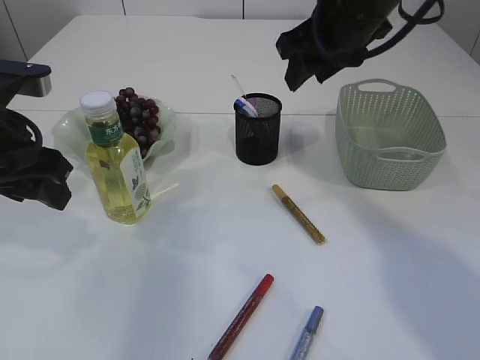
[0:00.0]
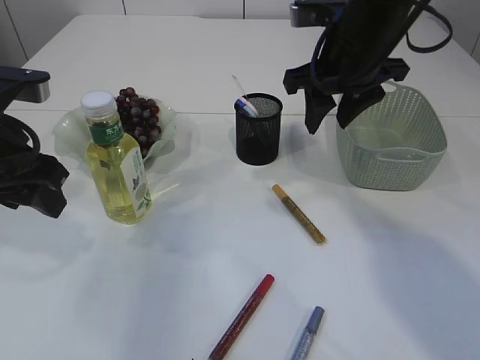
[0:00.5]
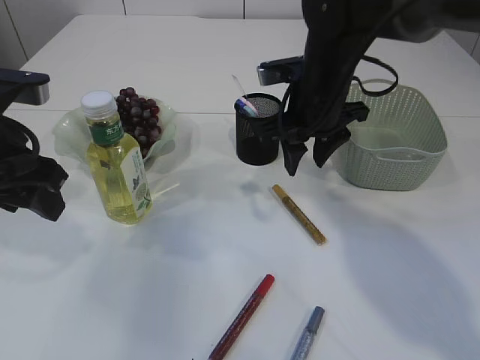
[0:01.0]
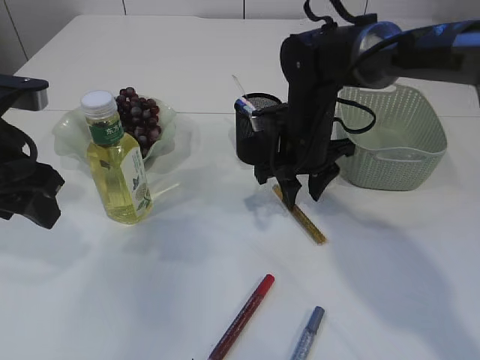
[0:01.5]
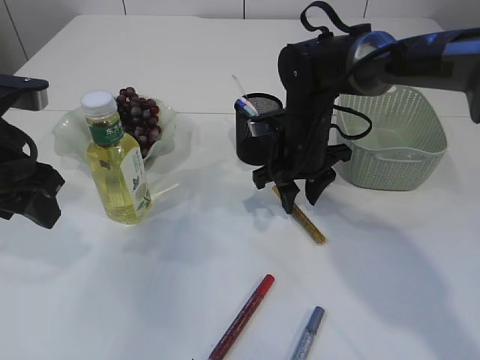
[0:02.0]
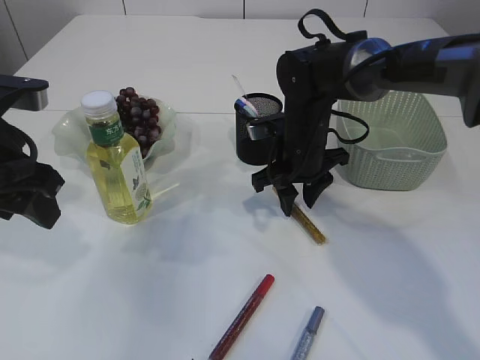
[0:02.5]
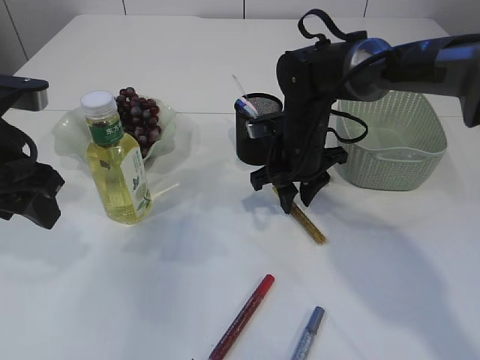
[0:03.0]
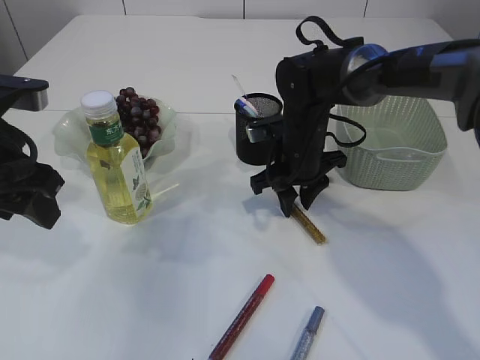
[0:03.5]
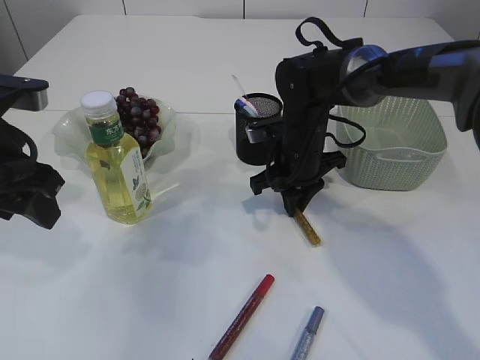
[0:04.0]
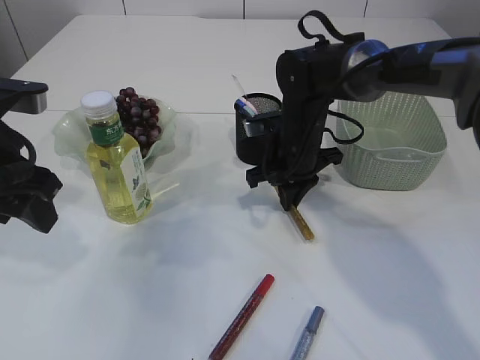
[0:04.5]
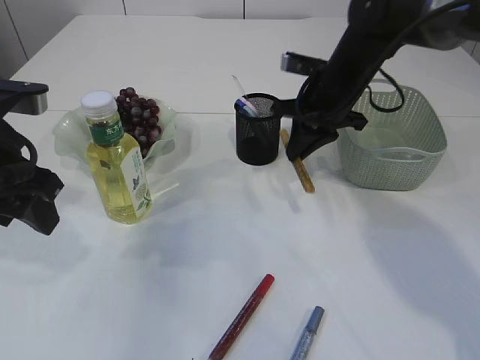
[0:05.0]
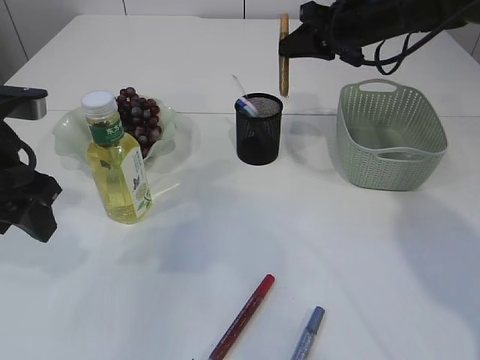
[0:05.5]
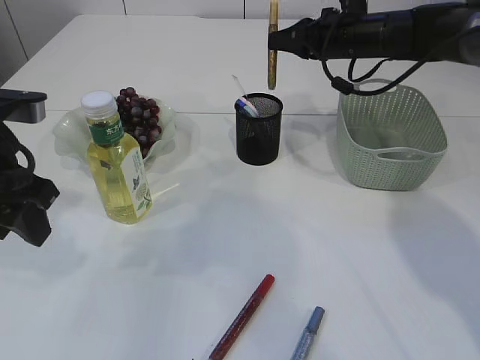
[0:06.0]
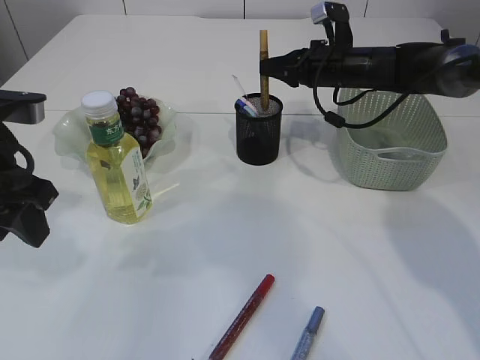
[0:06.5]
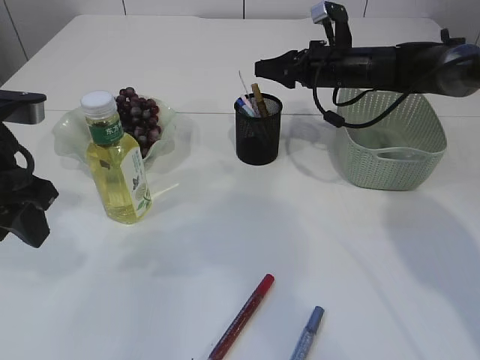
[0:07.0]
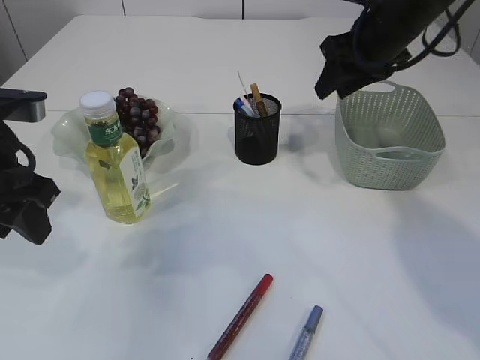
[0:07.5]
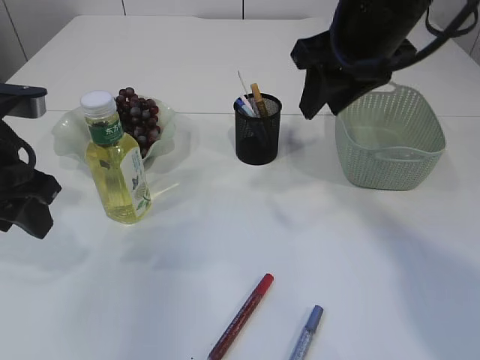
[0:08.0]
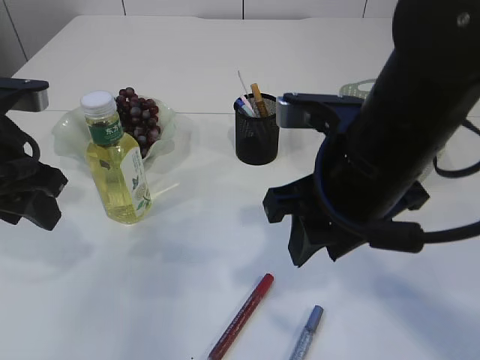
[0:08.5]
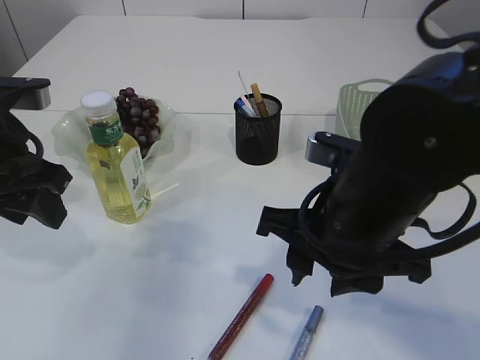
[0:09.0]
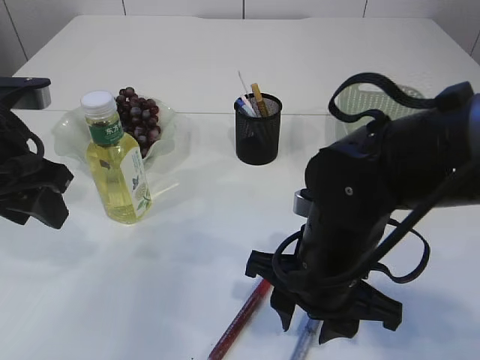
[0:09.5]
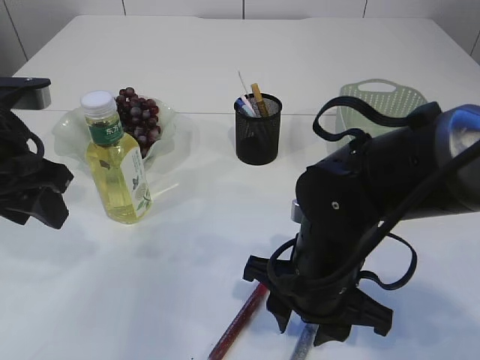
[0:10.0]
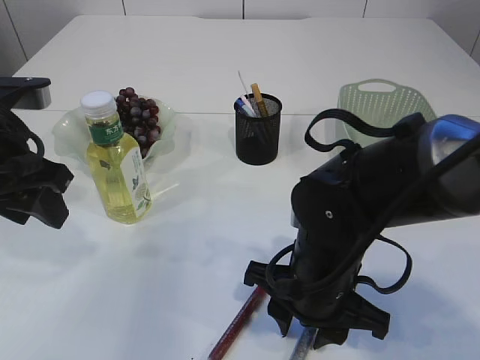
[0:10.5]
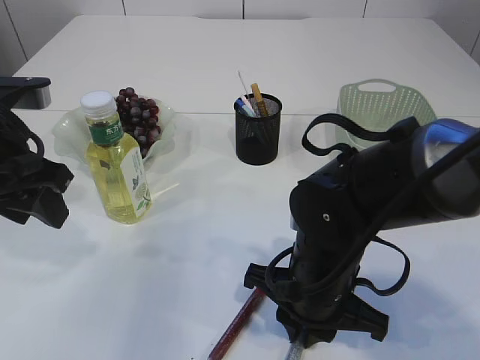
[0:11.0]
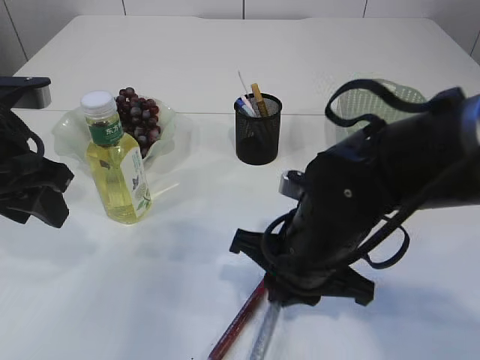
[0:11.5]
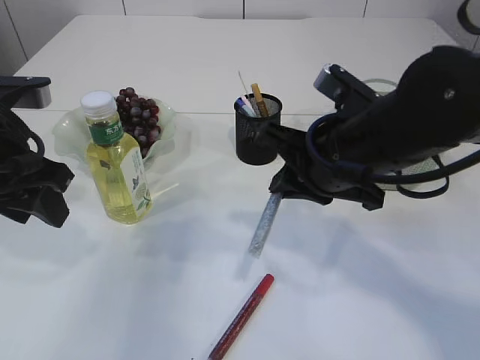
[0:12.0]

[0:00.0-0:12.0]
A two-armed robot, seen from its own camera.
Step, 0:00.0 to 0:04.5: pick up the yellow glue.
Step, 0:05.0 to 0:07.0: place the yellow glue into the pen holder.
Step, 0:07.0 to 0:12.0: pick up the silver glue.
0:00.0 to 0:02.0: The right gripper shifts roughly 15 cm downward.
0:02.0 to 0:04.0: The right gripper closes.
0:04.0 to 0:06.0: The right gripper shifts about 15 cm upward, forward and to the right.
0:06.0 to 0:08.0: The right gripper travels backward and upward by roughly 20 cm, and opens its fingers.
0:08.0 to 0:10.0: The right gripper heads downward and backward, covering approximately 25 cm.
0:10.0 to 0:12.0: The right gripper travels upward by about 10 cm, and closes up.

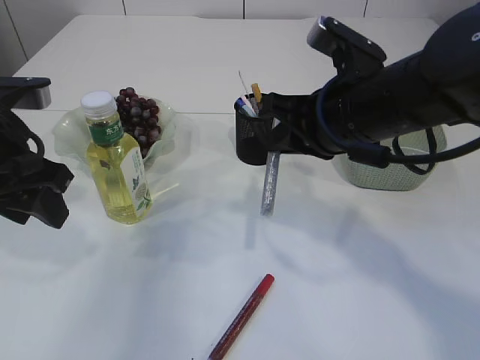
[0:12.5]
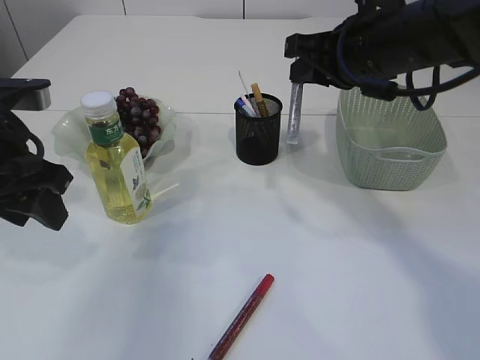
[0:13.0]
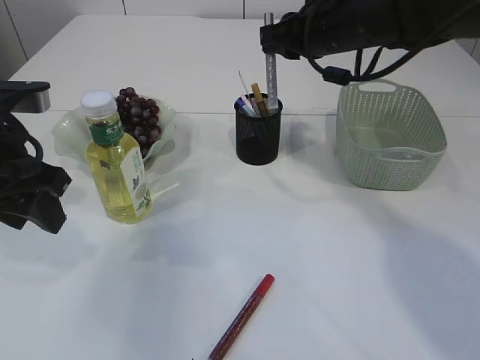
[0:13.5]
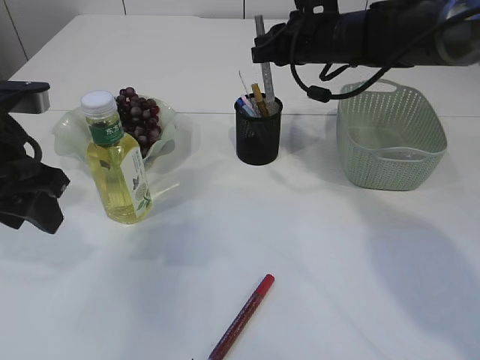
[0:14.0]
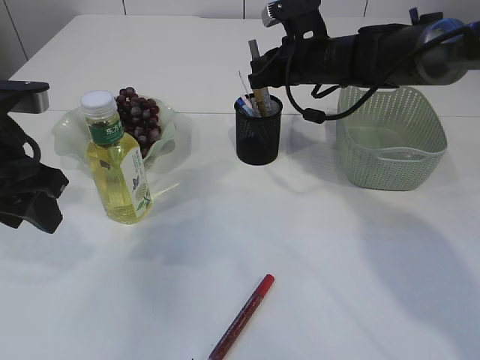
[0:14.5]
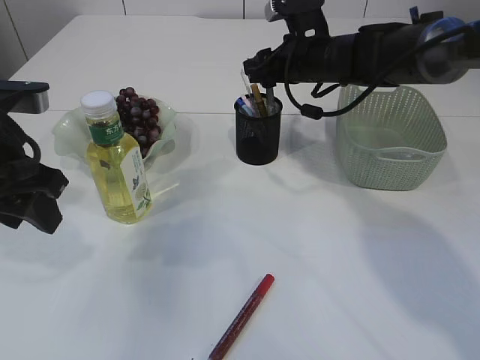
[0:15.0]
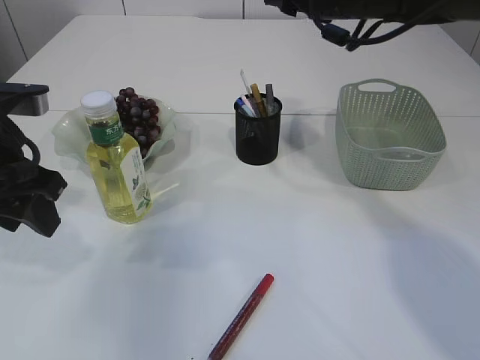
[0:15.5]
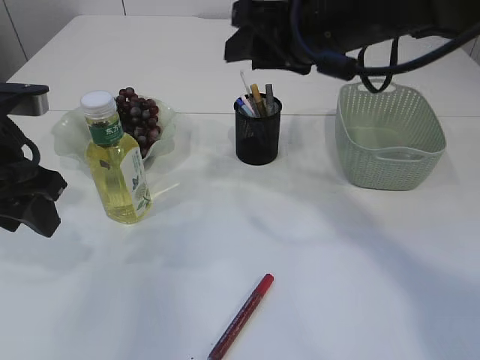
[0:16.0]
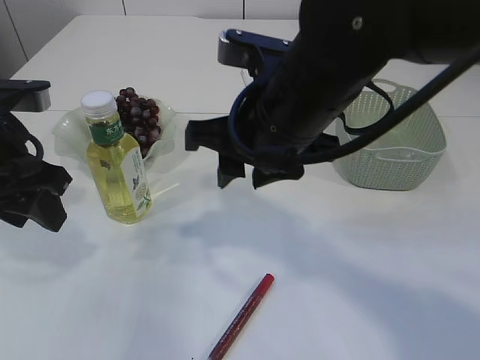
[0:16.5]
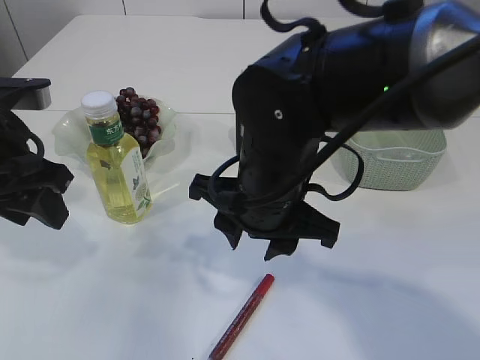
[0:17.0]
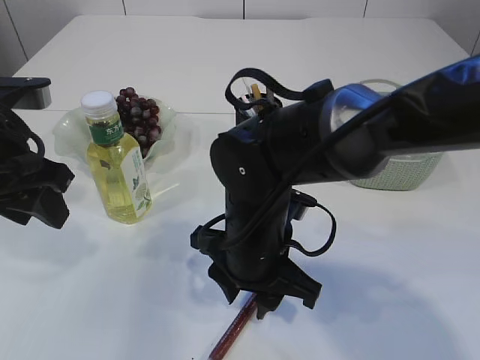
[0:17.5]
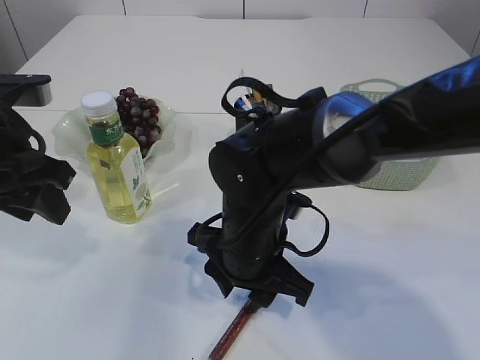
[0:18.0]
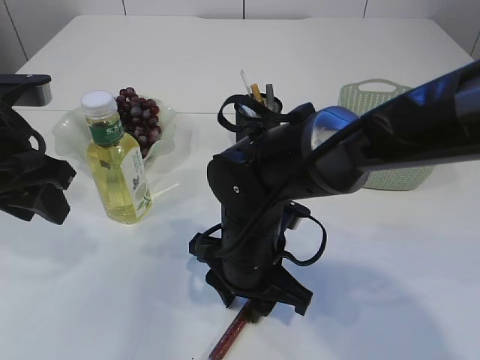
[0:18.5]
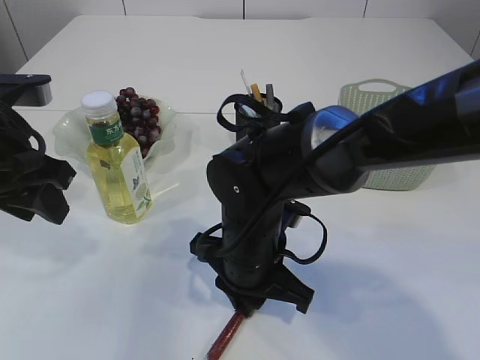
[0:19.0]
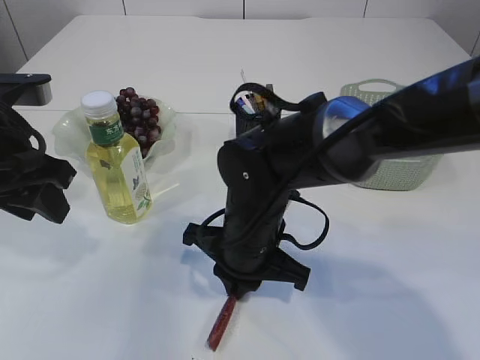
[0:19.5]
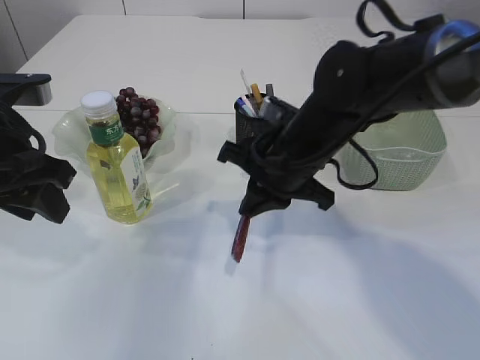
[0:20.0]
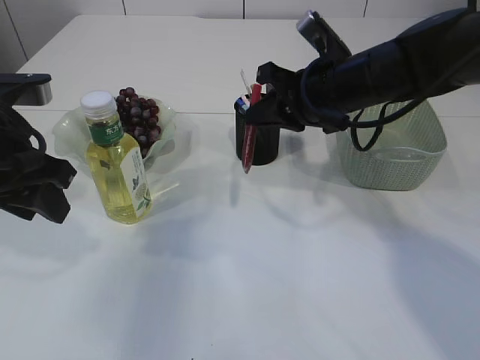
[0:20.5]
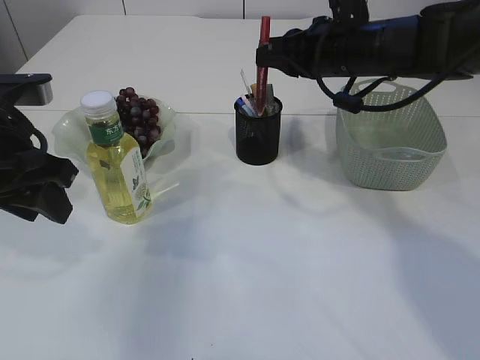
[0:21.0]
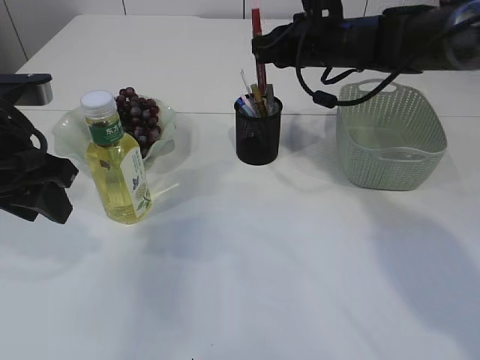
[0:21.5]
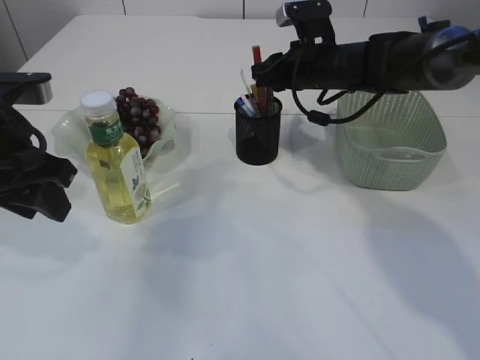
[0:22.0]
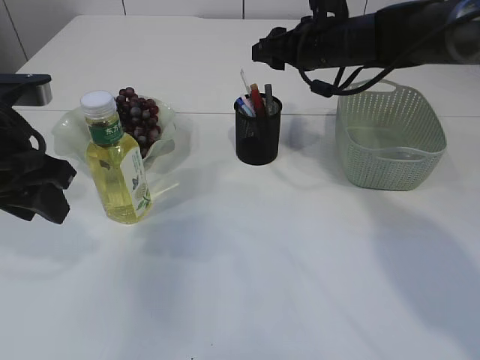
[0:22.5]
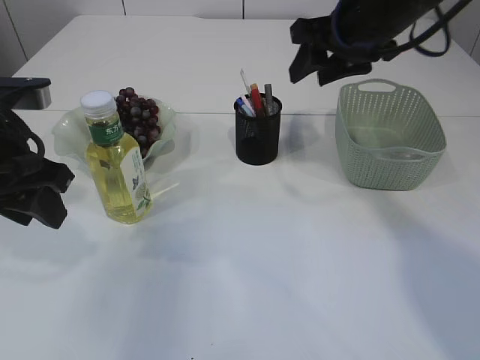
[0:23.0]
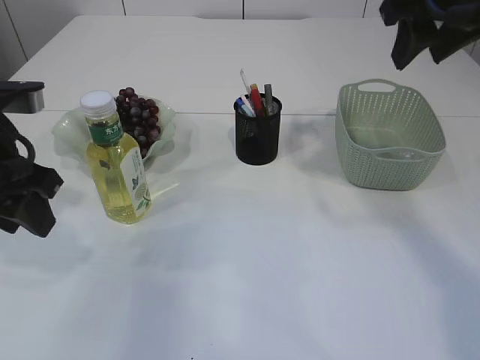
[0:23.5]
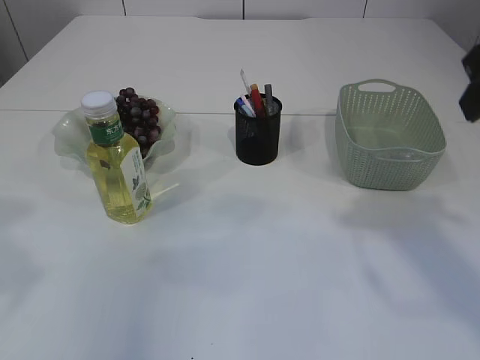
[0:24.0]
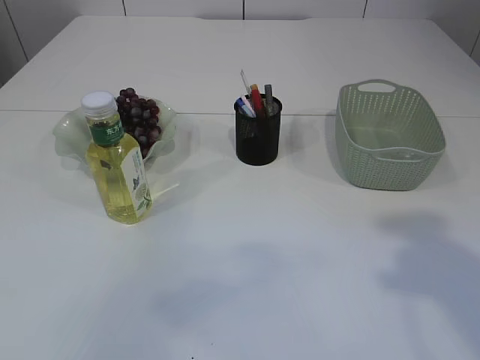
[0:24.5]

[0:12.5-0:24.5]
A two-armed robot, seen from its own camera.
Step, 0:12.5 to 0:15.0: place the silver glue into the pen holder.
Step, 0:15.5 to 0:20.0: pick up the red glue.
Step, 0:20.5 to 0:22.5: place the red glue into the pen holder.
0:12.5 to 0:14.5: The right gripper heads forward, covering about 20 cm.
0:14.5 to 0:16.5: The right gripper heads backward, covering roughly 20 cm, and opens up.
0:16.5 to 0:18.5: The right gripper travels downward by some 15 cm.
0:18.5 to 0:20.5: The right gripper travels to the right, forward and upward by approximately 20 cm, and closes up.
0:20.5 to 0:22.5: The right gripper goes some 10 cm forward, and opens.
0:22.5 to 0:24.5: The left gripper heads backward and upward, covering roughly 20 cm; the right gripper moves backward, about 35 cm.

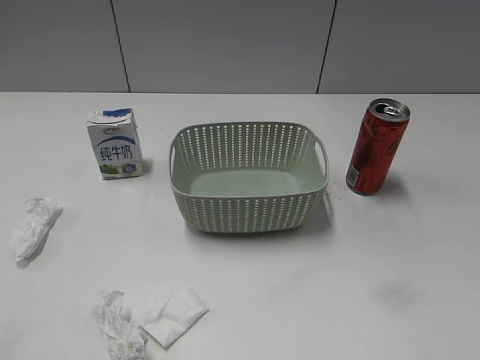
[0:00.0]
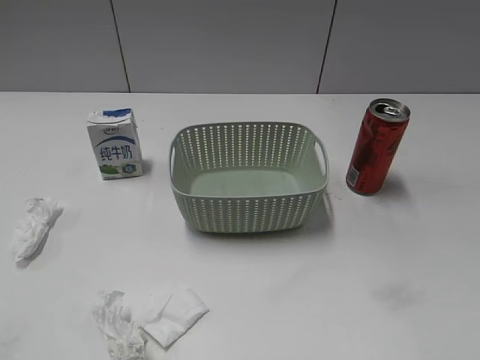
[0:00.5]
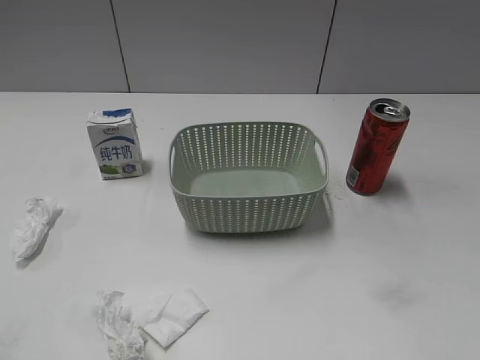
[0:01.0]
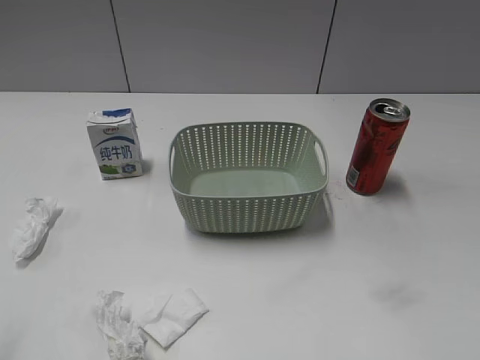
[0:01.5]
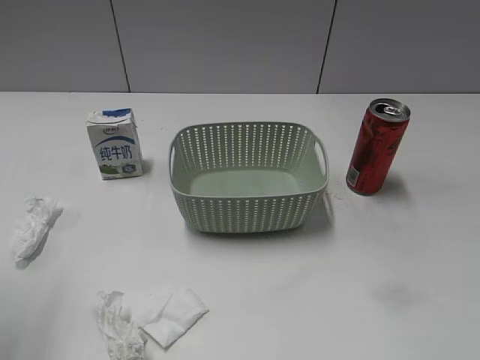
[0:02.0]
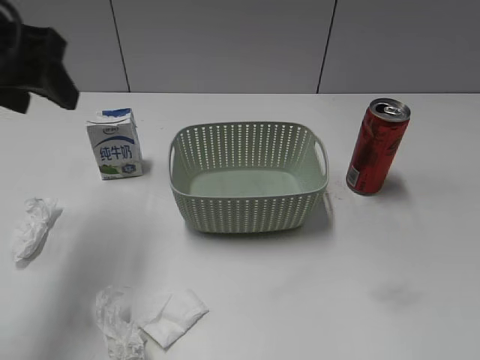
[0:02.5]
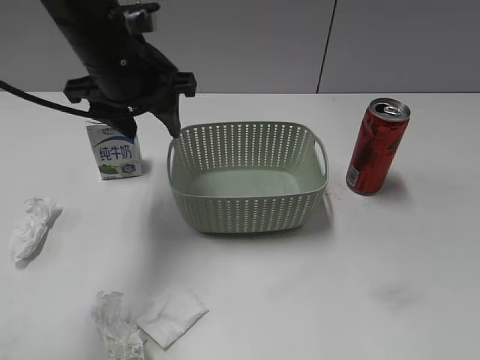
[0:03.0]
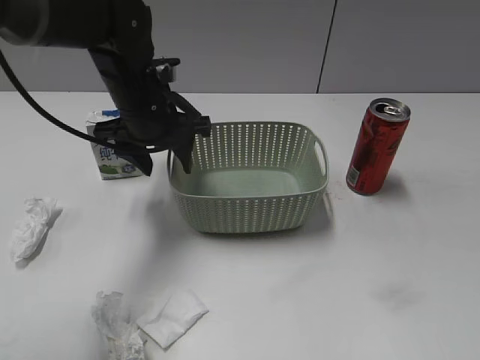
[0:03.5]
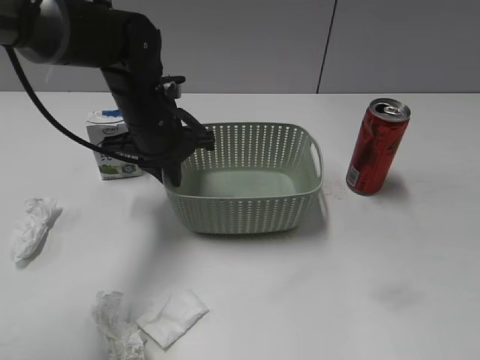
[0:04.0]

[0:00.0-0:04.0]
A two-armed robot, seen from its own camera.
0:02.0 to 0:04.0: The left gripper shifts roughly 35 cm forward, to the right and downward, and closes its fingers.
